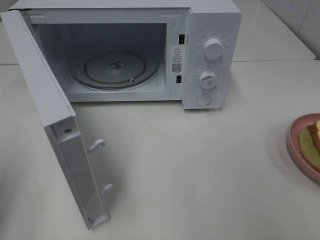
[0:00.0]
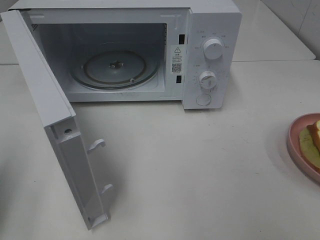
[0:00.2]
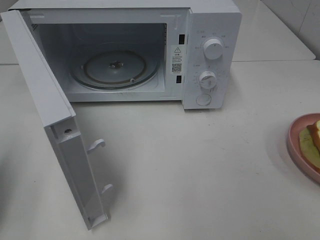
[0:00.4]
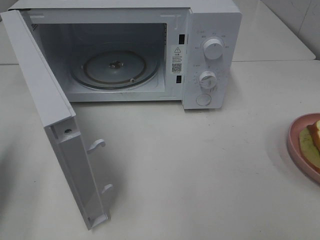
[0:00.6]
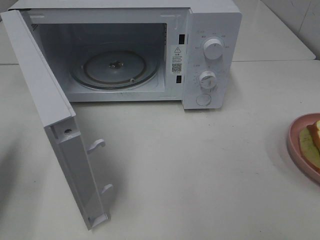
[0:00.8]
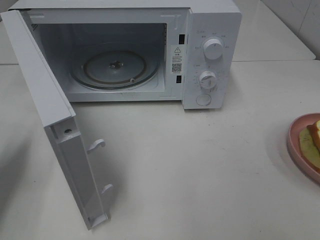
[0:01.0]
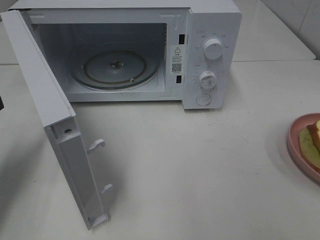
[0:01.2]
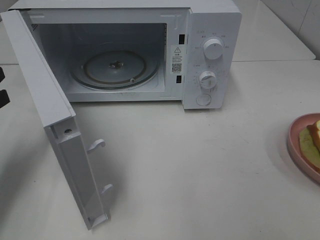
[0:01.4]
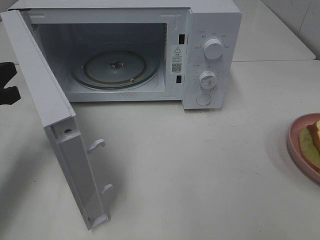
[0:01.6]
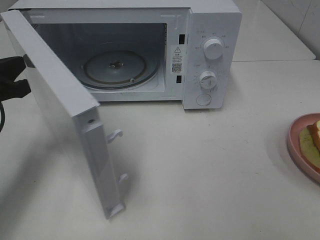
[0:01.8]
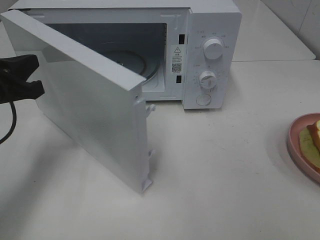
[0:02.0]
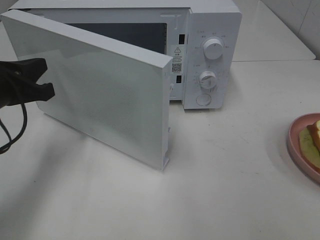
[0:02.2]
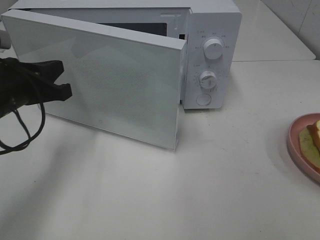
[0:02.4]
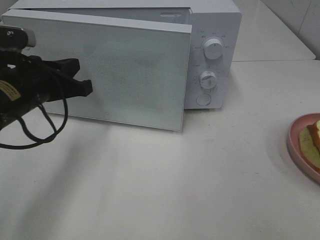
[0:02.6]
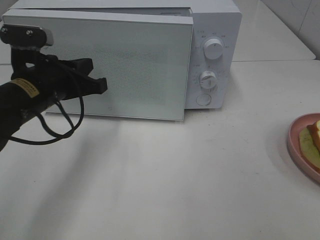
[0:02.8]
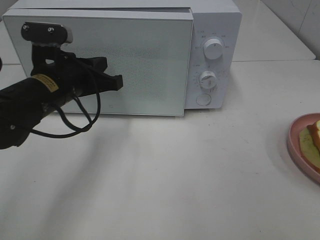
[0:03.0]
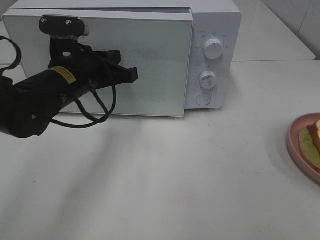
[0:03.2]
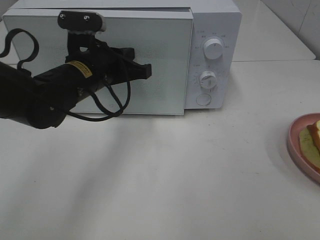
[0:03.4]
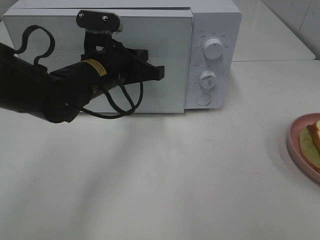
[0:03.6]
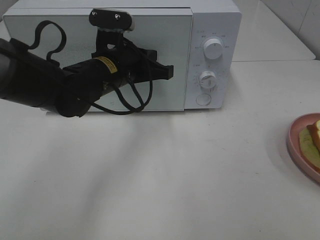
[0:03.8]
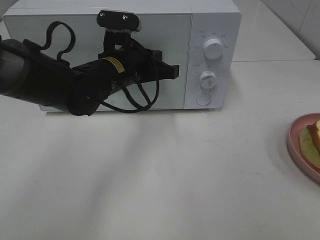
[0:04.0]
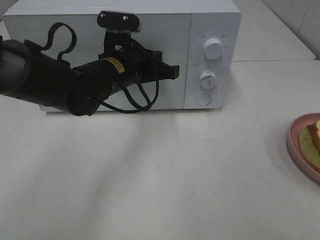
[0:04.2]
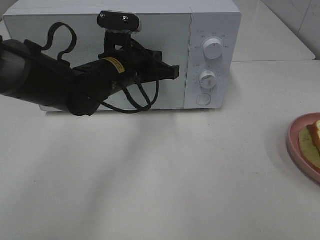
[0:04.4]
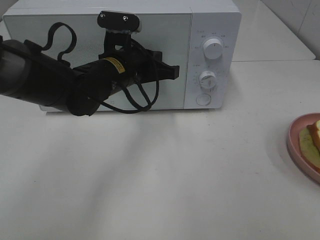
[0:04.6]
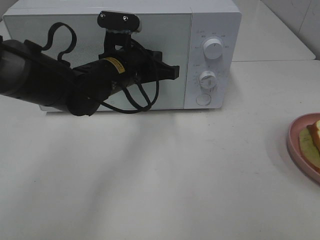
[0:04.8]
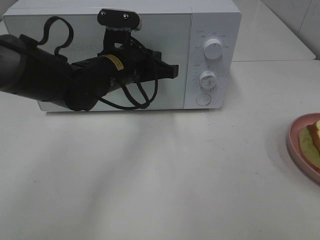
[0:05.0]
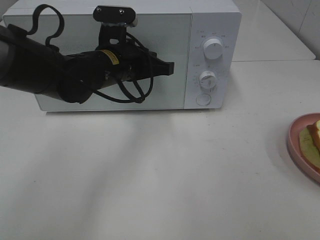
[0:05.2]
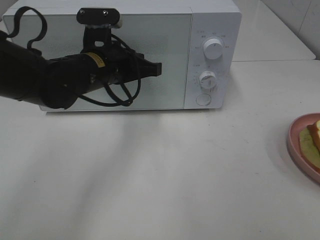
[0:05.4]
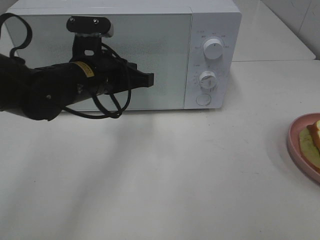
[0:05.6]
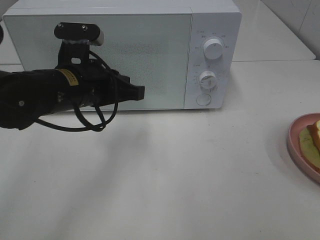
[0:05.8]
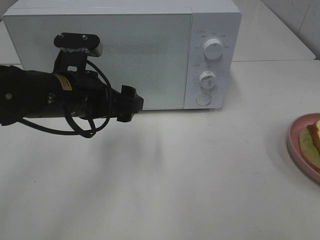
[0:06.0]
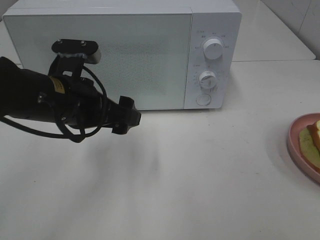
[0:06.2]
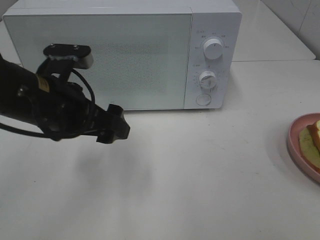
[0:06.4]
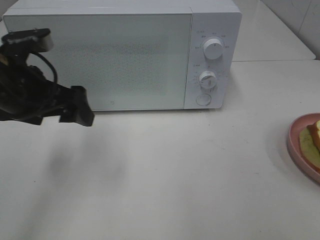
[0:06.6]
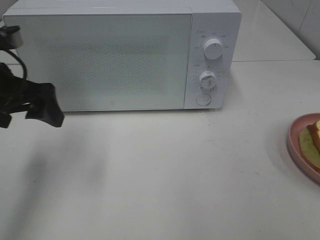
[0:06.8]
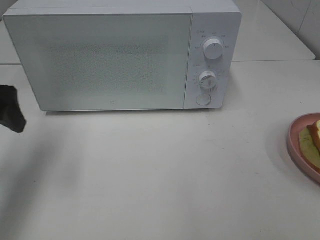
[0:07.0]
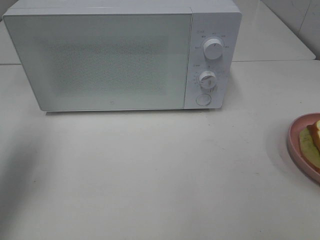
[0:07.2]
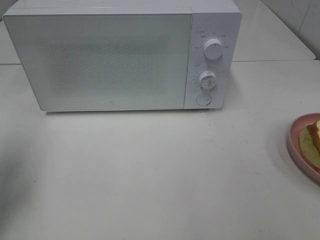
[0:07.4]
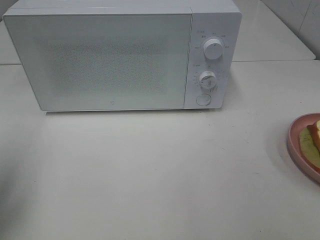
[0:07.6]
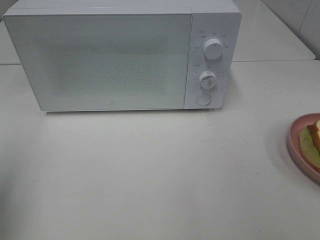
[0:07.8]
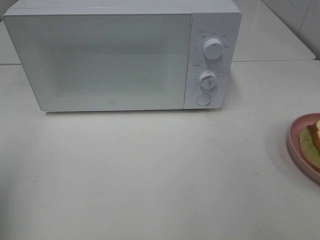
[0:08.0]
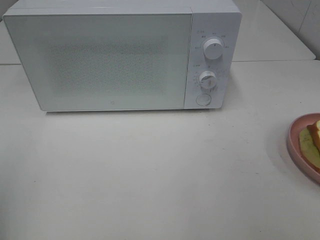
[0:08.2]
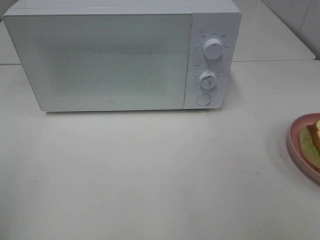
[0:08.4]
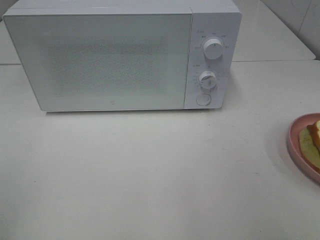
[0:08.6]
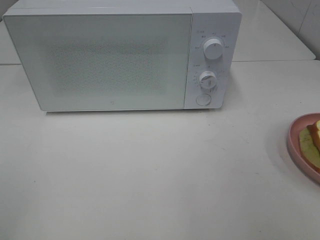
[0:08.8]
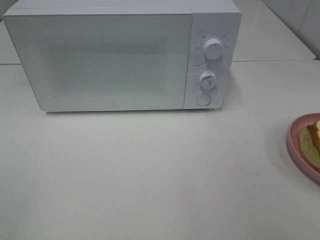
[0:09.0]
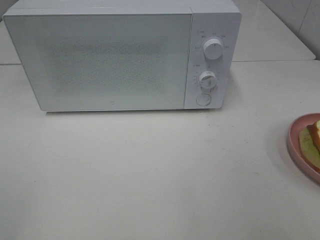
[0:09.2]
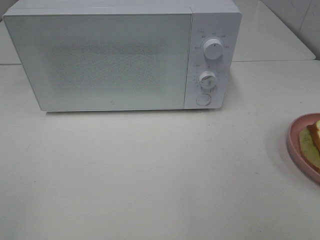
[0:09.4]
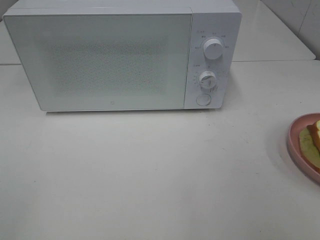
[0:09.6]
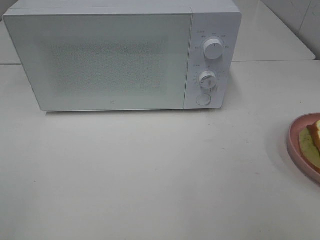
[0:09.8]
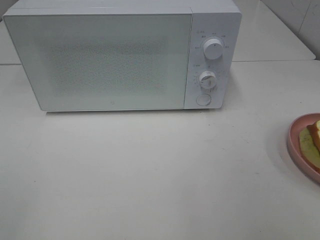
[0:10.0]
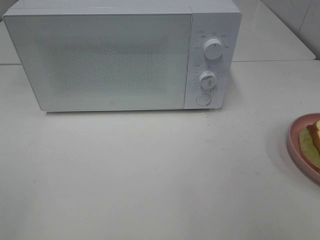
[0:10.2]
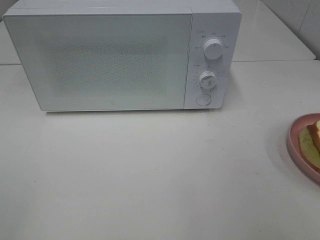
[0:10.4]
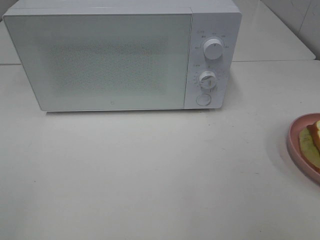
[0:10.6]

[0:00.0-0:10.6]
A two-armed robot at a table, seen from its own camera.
Task of the whole recording: Heat Sandwich.
Step, 0:00.0 to 0:05.2: Left hand: close the microwave door.
0:00.0 to 0:01.6: The left gripper travels forward and downward by some 15 cm.
0:01.6 to 0:03.0: The left gripper moves to the right, roughly 15 cm.
0:03.0 to 0:04.6: The left gripper goes some 10 cm to the right.
0:04.6 to 0:06.0: The left gripper shifts approximately 10 cm backward and to the left, and opens.
0:06.0 to 0:07.6: The left gripper moves to the left and backward, about 25 cm.
0:07.6 to 0:09.0: The left gripper heads backward, covering some 20 cm.
0:09.0 to 0:10.6: Both grippers stay about where they are.
